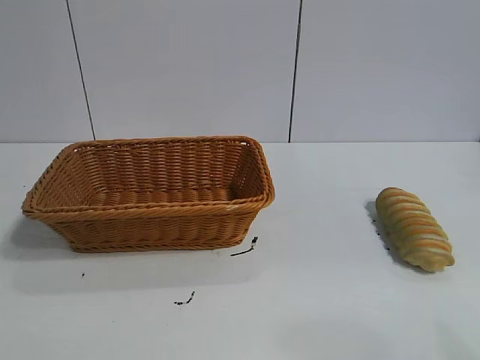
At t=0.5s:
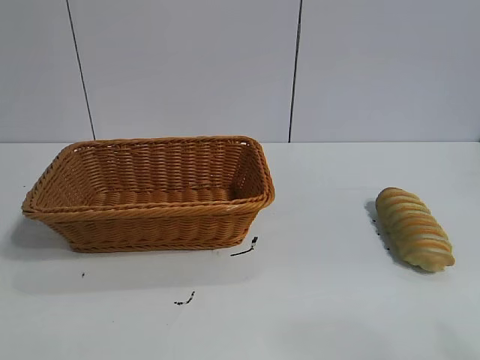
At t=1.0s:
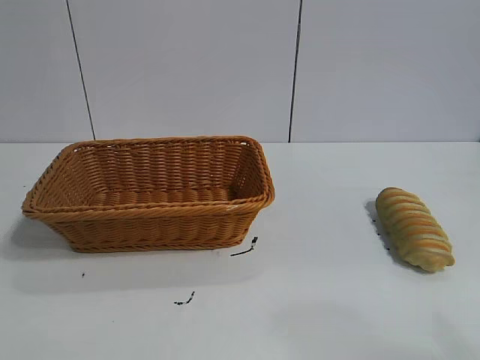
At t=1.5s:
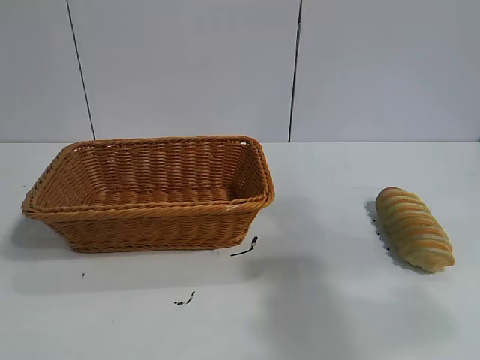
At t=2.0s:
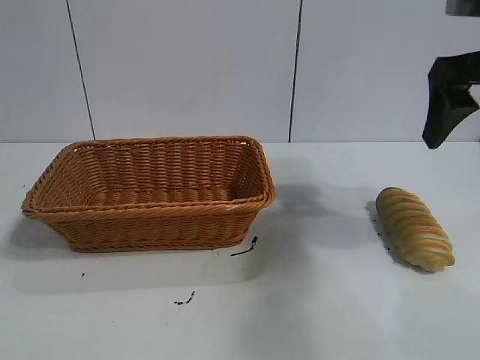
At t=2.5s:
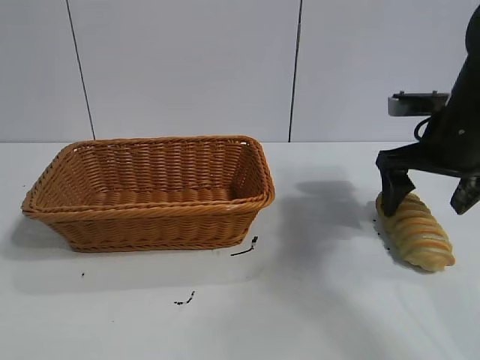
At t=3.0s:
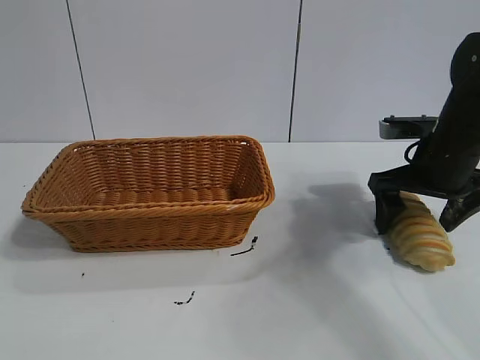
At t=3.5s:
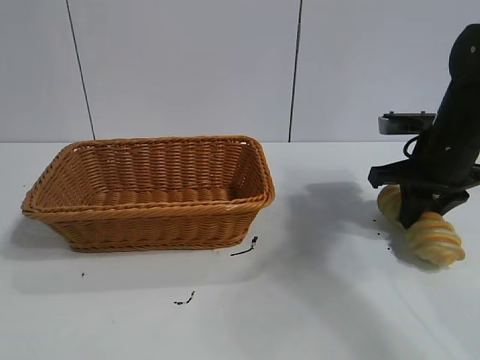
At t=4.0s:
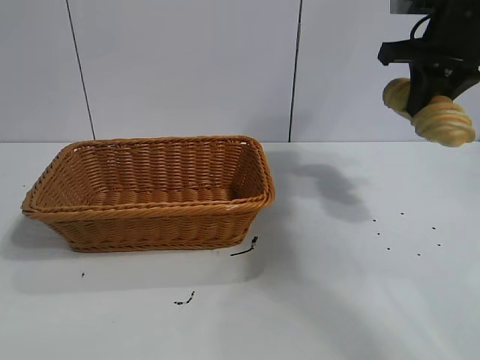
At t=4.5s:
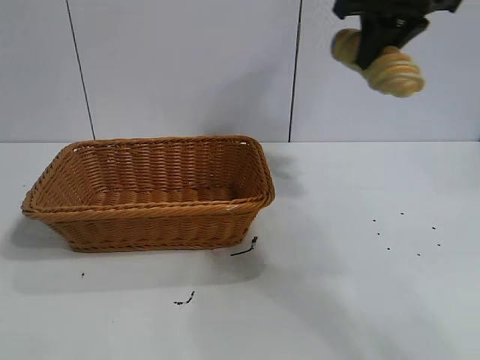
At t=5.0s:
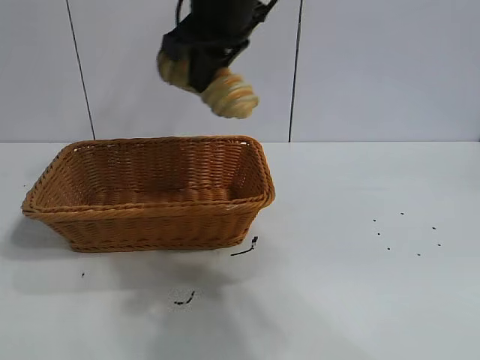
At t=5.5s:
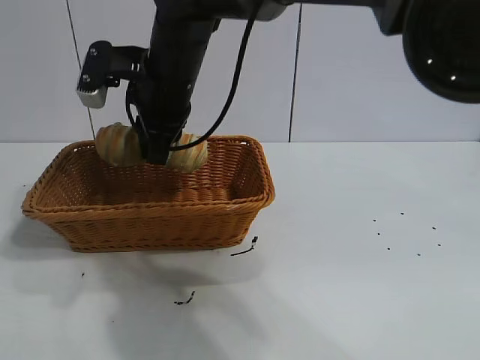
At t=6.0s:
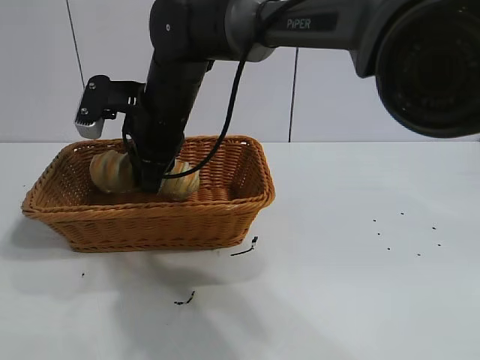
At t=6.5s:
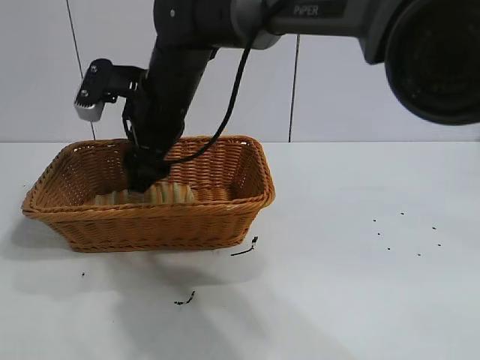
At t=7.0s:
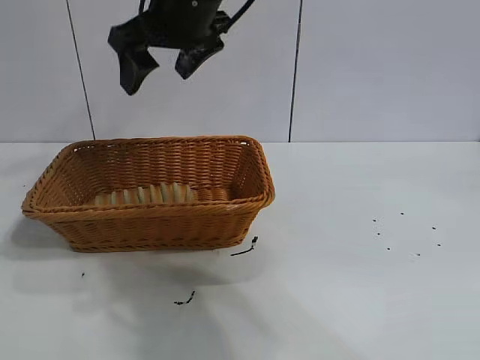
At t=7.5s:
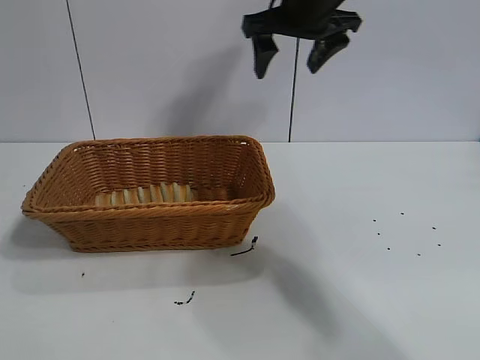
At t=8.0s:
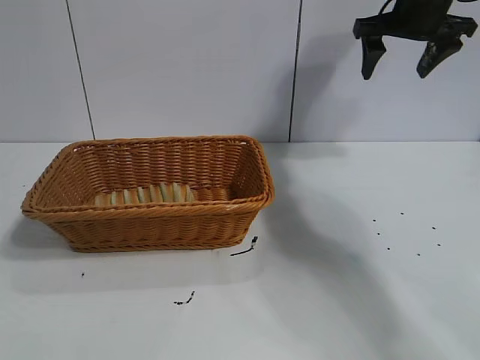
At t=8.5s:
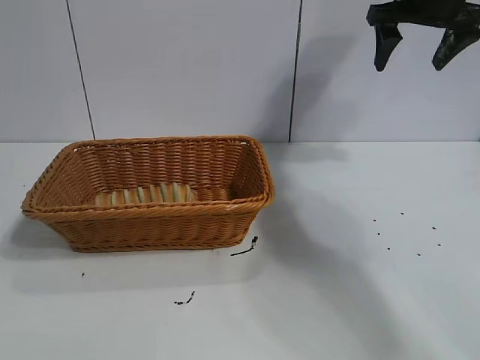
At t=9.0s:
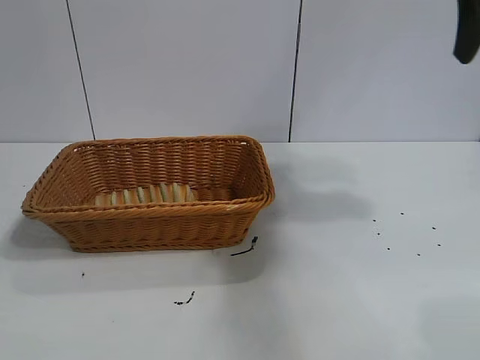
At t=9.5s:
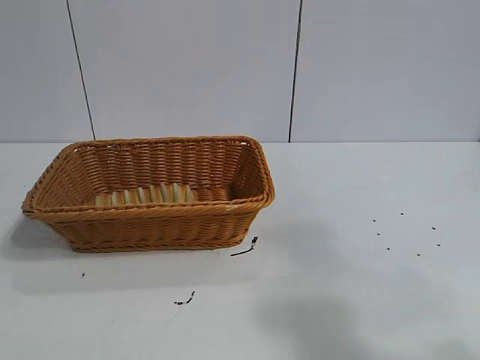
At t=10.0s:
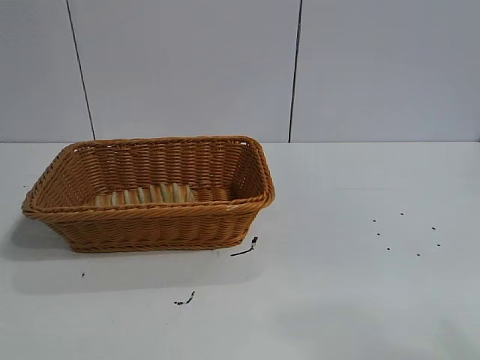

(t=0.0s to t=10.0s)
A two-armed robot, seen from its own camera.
Task of the whole recording: pick up the long bread and put it into the basket.
Step, t=2.0s - t=3.5s: Grasp the long bread with right gripper.
Step, t=4.0s - t=6.5s: Place the long bread in the basket with right gripper.

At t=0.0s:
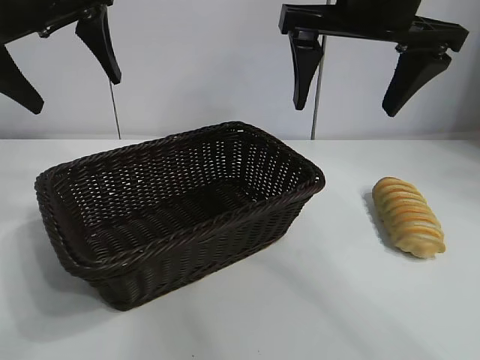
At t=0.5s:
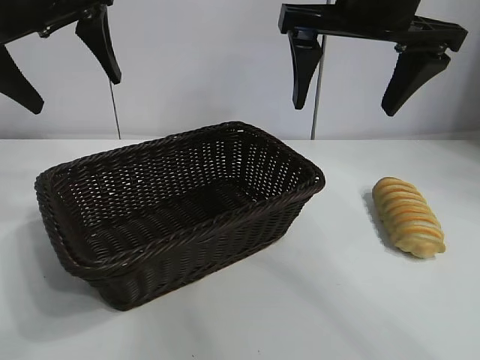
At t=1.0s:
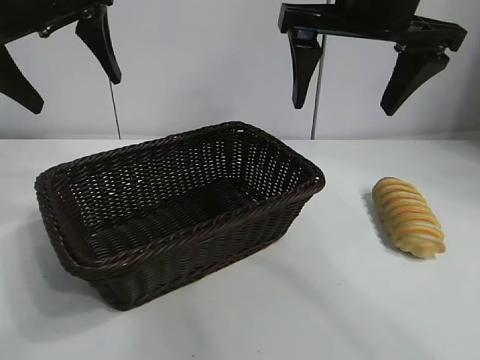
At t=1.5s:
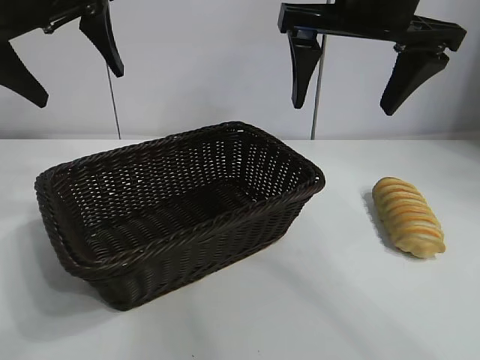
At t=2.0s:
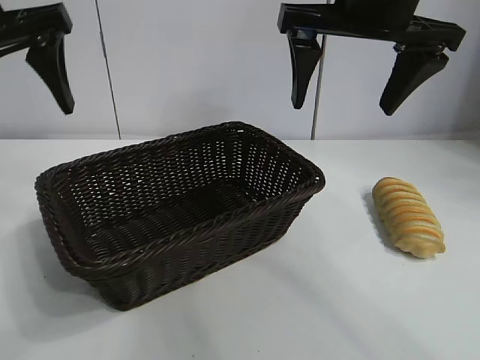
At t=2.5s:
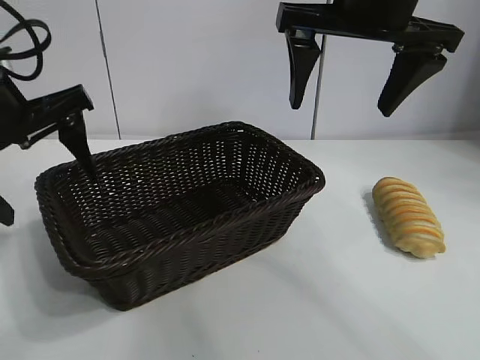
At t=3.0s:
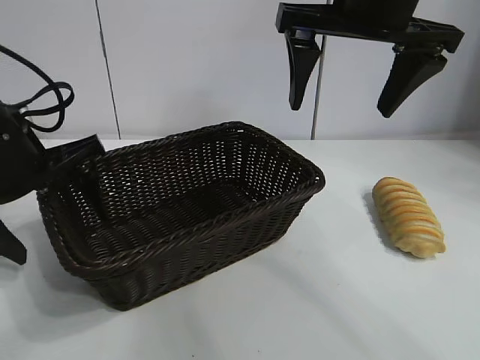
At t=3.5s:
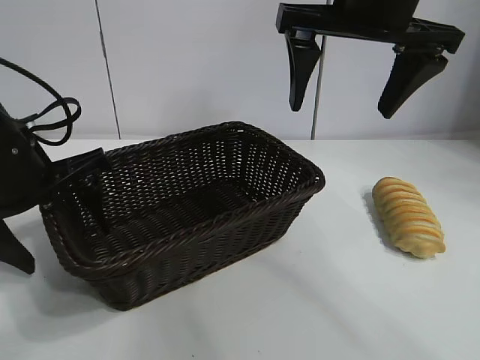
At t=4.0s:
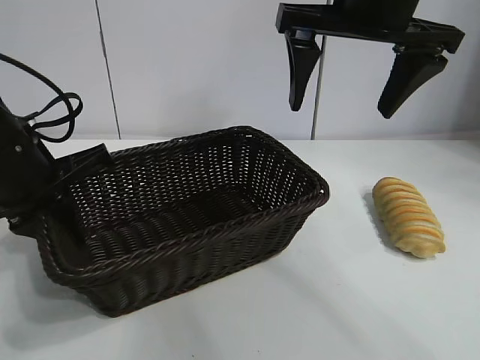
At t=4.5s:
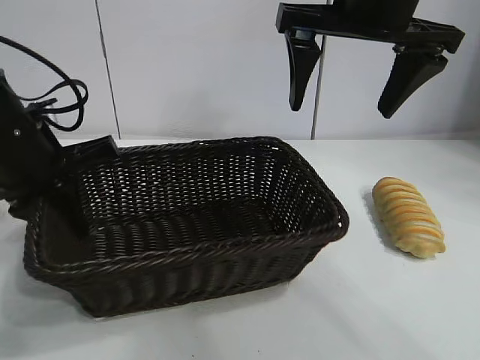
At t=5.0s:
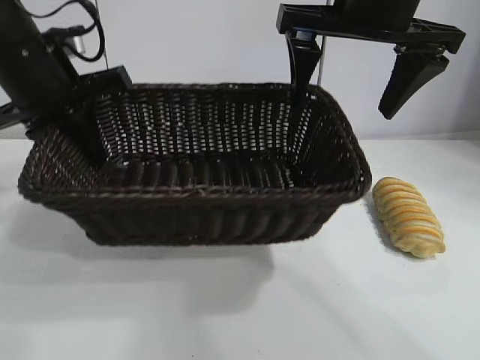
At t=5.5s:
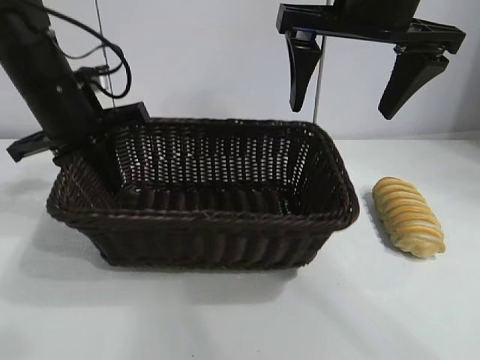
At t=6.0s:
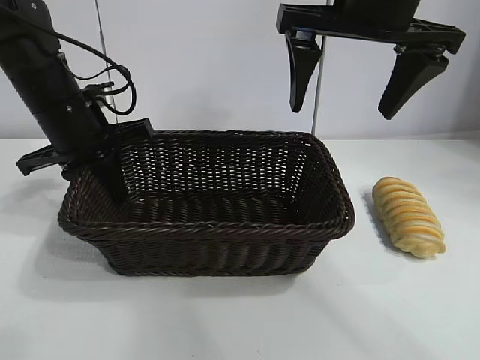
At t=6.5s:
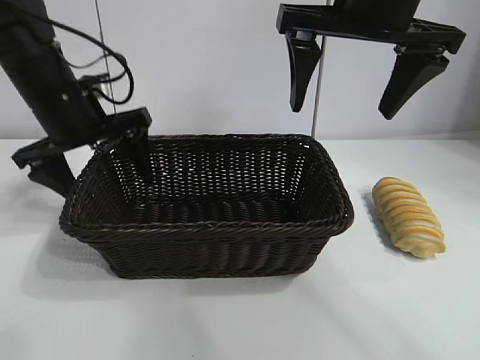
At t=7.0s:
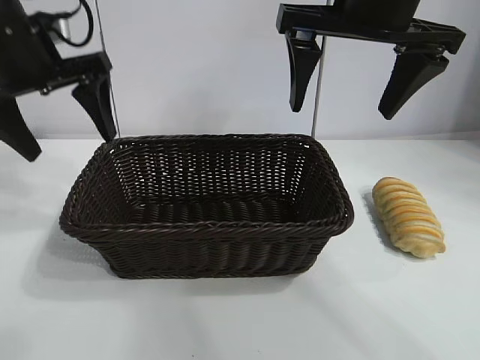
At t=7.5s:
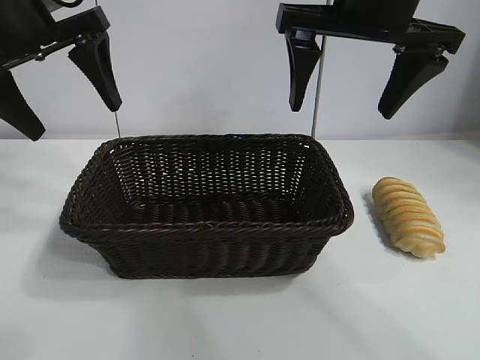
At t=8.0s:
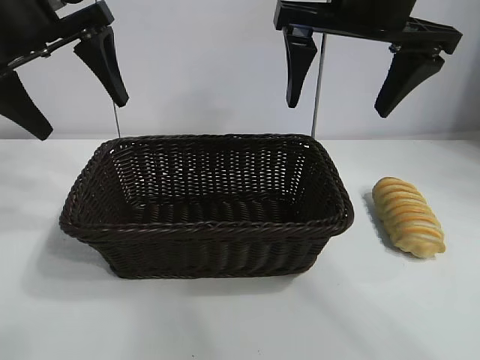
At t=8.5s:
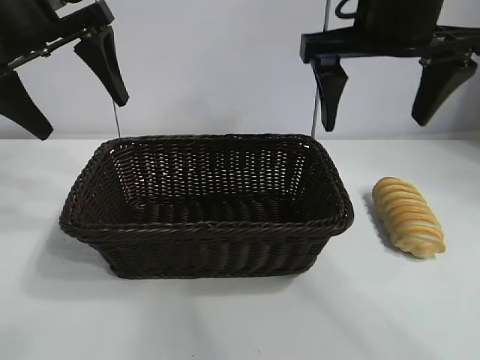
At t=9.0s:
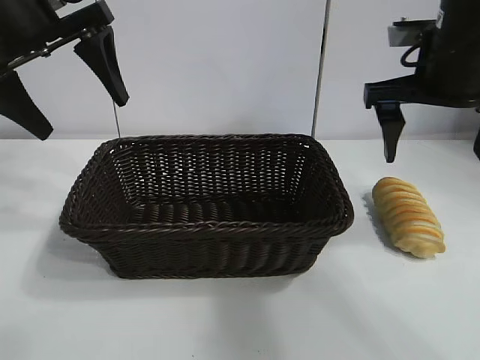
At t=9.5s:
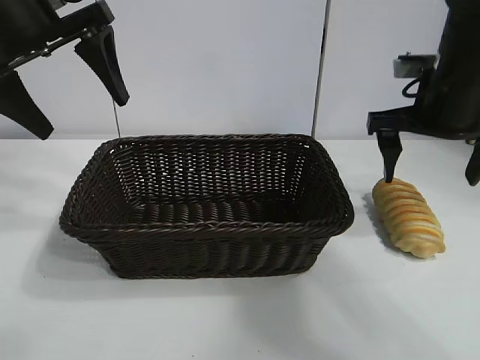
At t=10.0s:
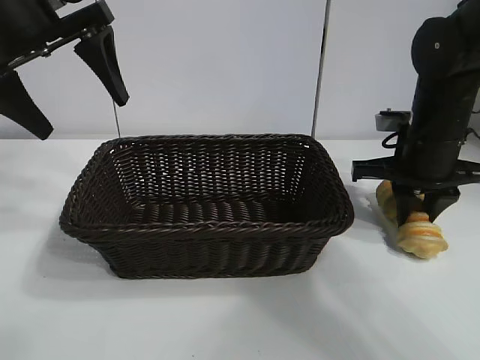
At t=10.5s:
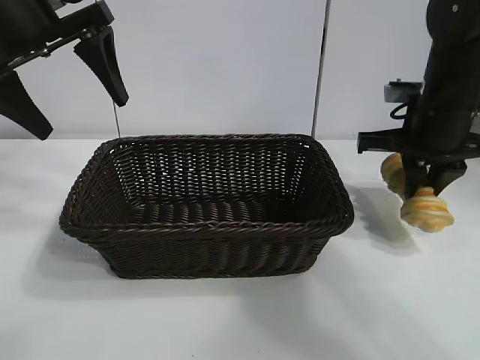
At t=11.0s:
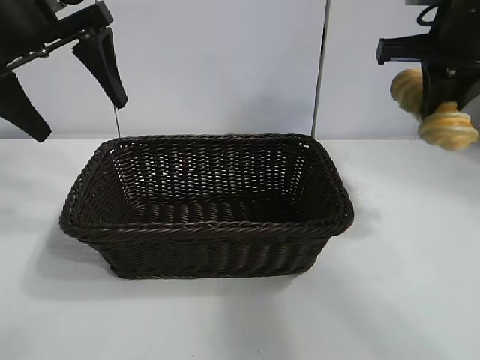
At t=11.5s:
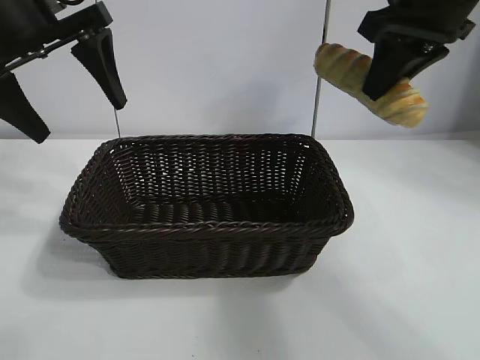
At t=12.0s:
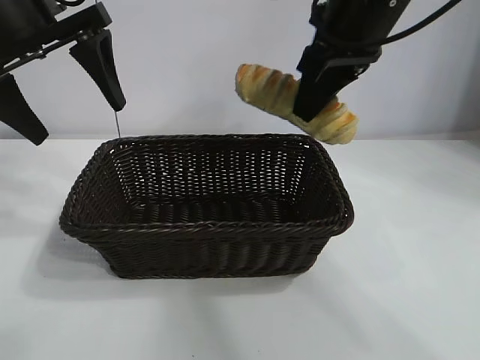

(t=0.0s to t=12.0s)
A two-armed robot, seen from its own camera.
Task of the whole recording: pick up the long bread and put it into the basket.
Step, t=1.5s - t=3.5s: Grasp the basket with the left gripper.
Step, t=4.0s - t=6.0s: Place the basket in the center of the table with the left gripper.
Step, t=7.0s - t=10.0s: Grasp the long bread with right gripper.
